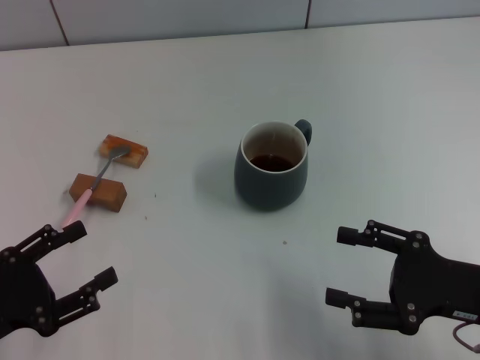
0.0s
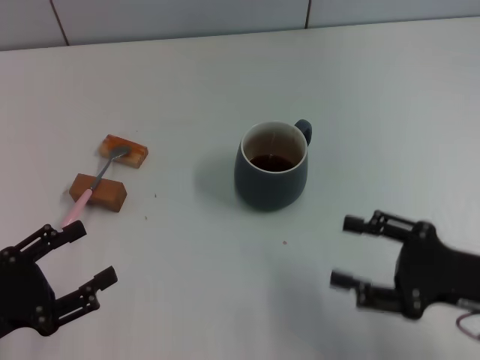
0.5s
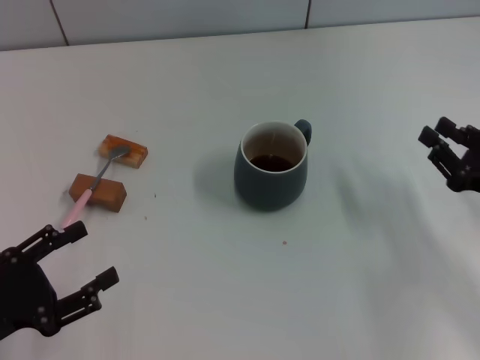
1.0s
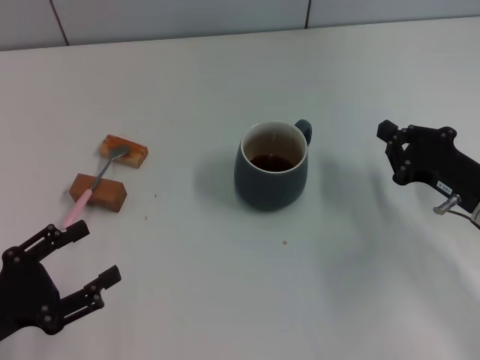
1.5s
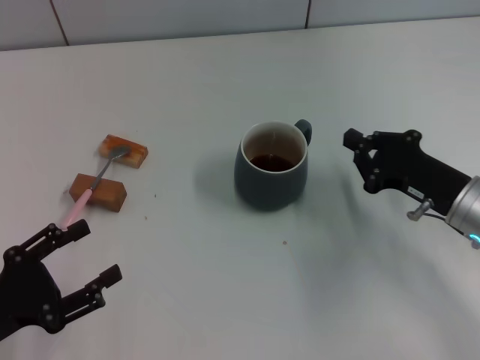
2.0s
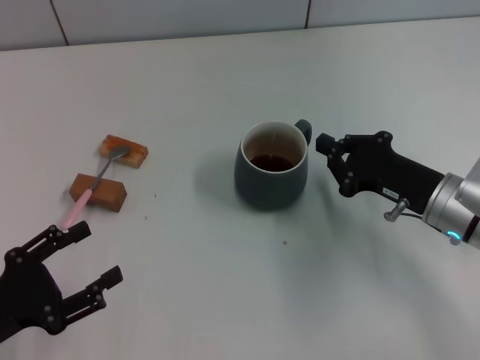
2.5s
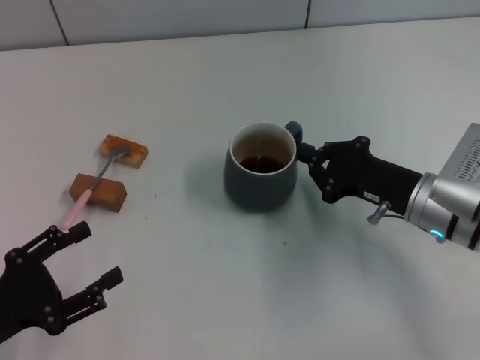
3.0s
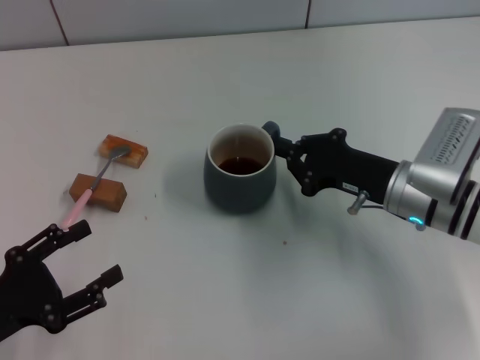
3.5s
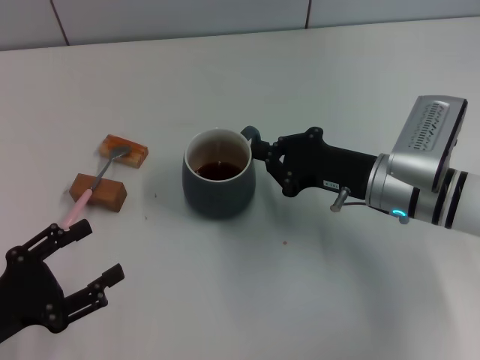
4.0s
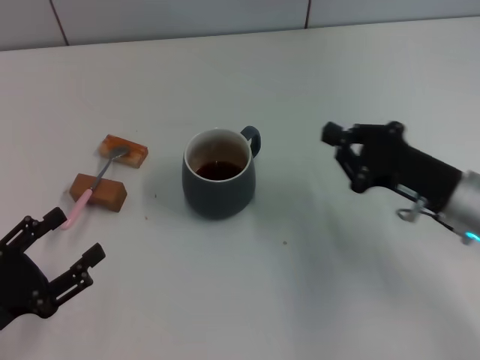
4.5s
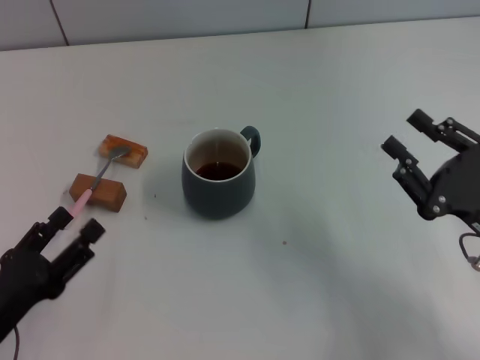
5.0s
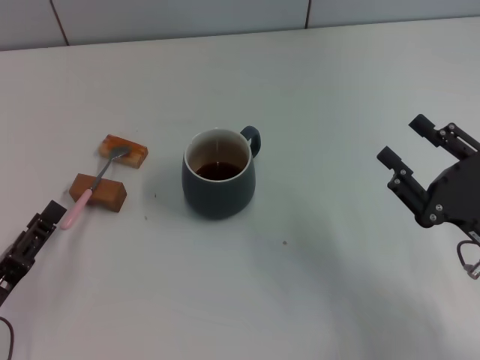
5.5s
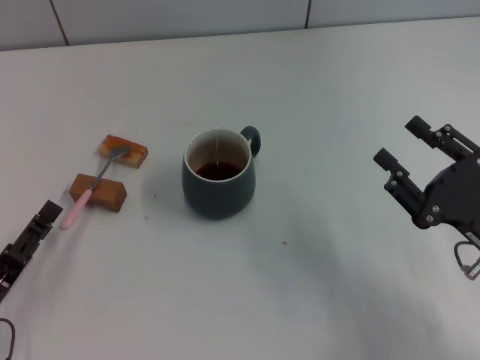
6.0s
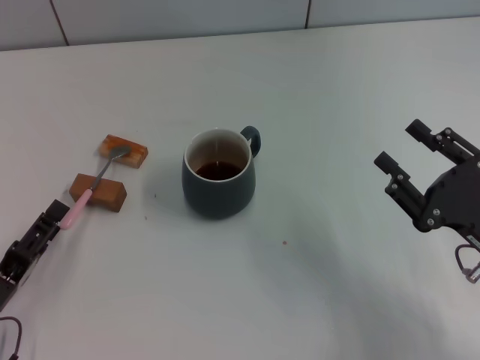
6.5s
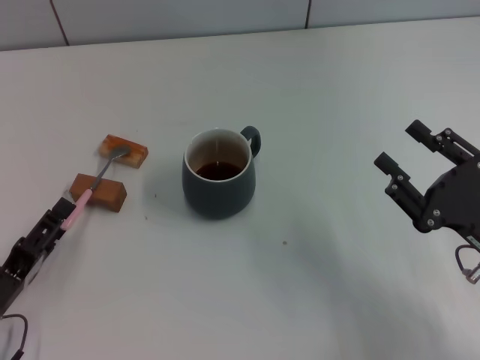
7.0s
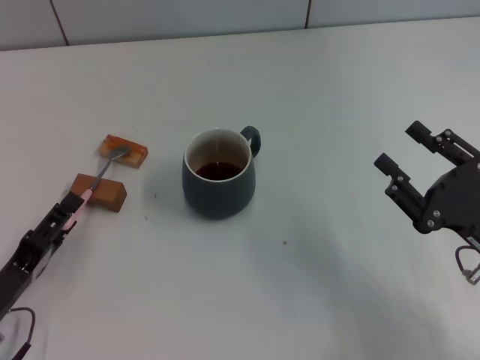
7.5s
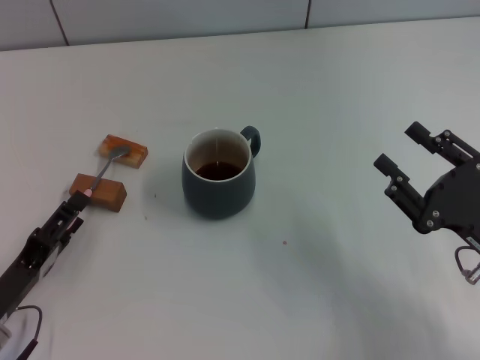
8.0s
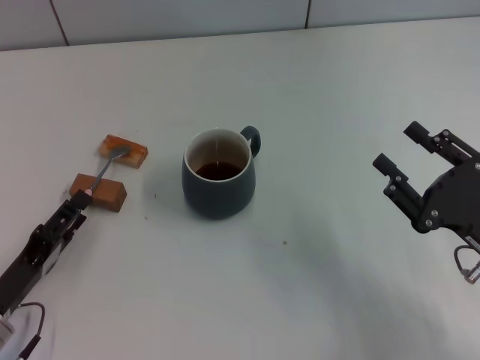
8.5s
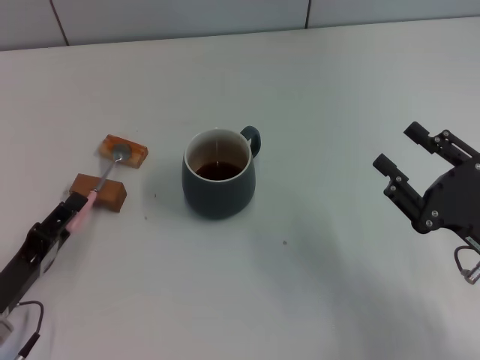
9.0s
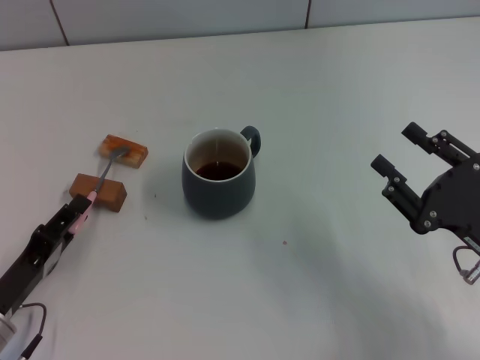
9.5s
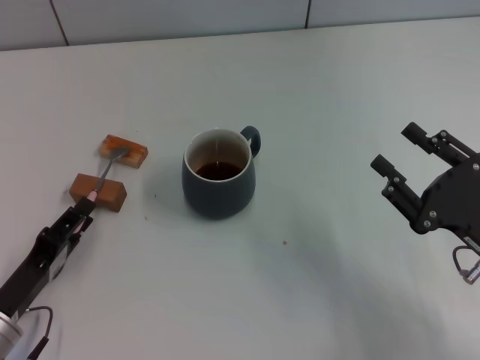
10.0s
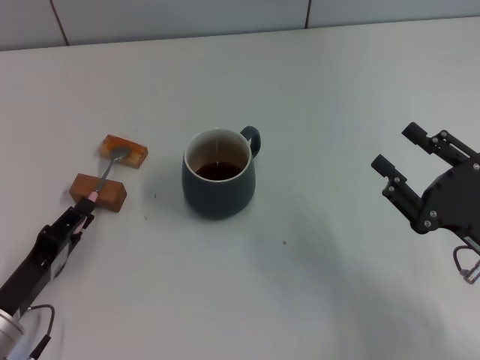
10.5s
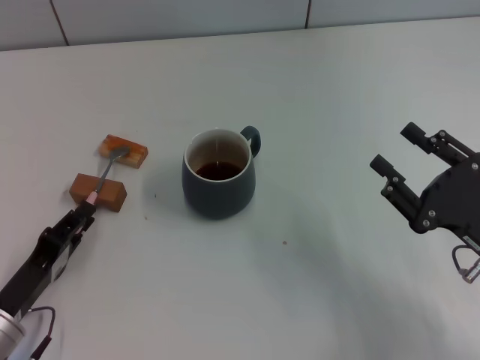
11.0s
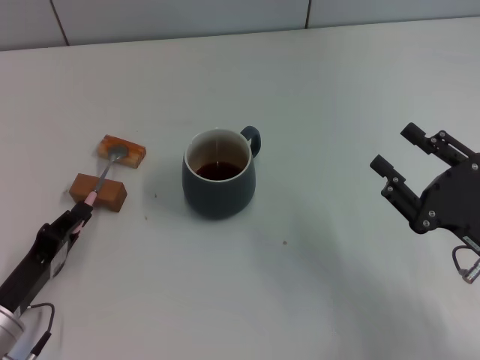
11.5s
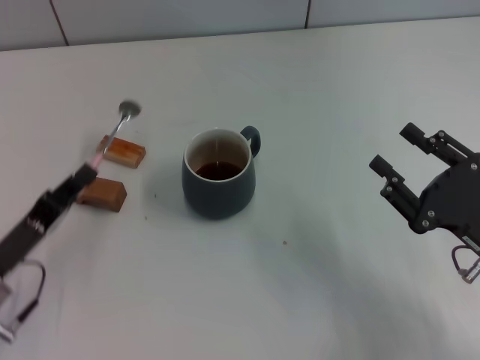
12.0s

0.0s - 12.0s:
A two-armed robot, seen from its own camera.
Task of the whole recording: Move the grey cup to the center, lift the pink spoon, stir it three times in the cup, and put the spoon into the cup.
Step, 0.0s - 4.0s: Move the cup with coffee to the center of view with the right gripper.
Step, 4.5s - 11.5s: Pick up the spoon with the left gripper.
0.0s - 2.0s: The right gripper shifts about 10 cm forward, and closes its fingers.
2.0s - 4.0s: The right gripper shifts roughly 10 cm to the left.
4.0s - 6.0s: The right gripper is displaced backward and to the right by about 15 cm, and opens its fingers.
6.0s - 8.0s: The grippers move only a little.
8.0s - 10.0s: The left gripper closes its fingers.
10.0s - 12.0s: The left gripper closes up.

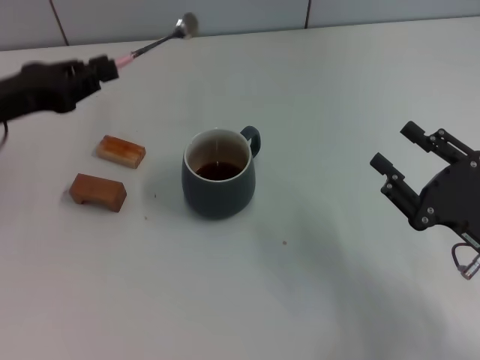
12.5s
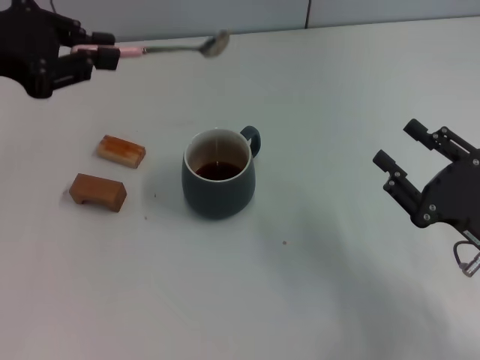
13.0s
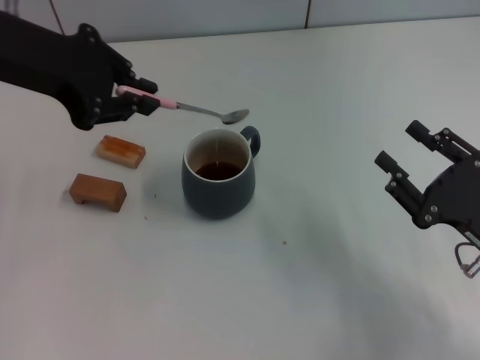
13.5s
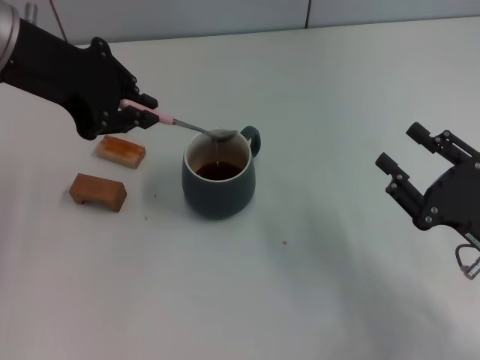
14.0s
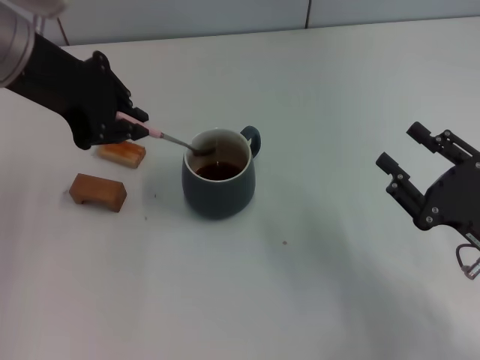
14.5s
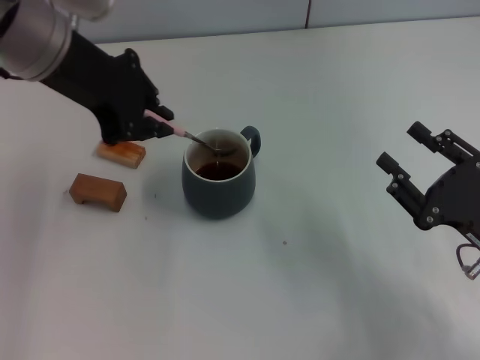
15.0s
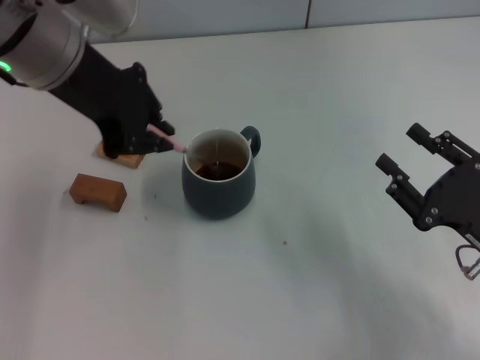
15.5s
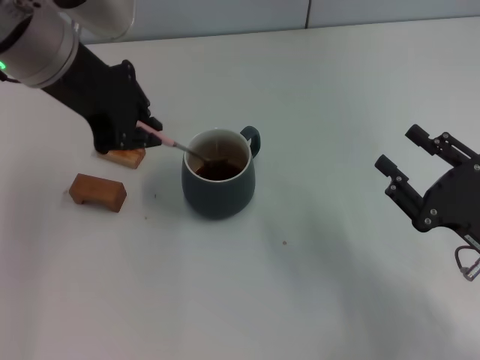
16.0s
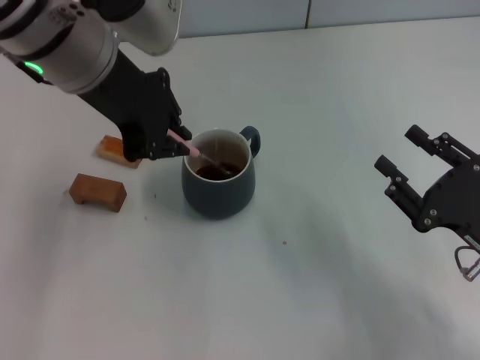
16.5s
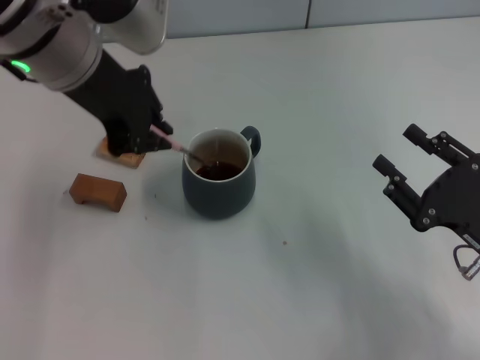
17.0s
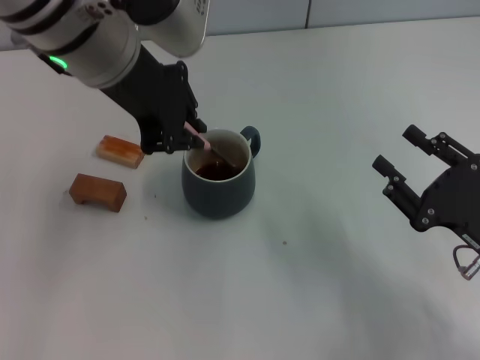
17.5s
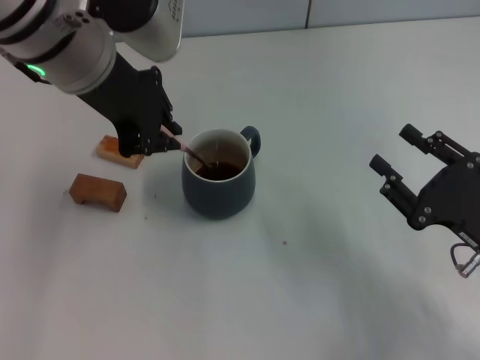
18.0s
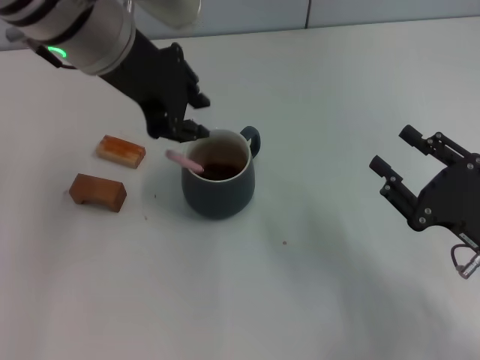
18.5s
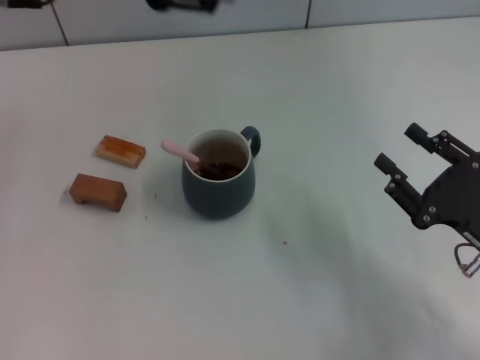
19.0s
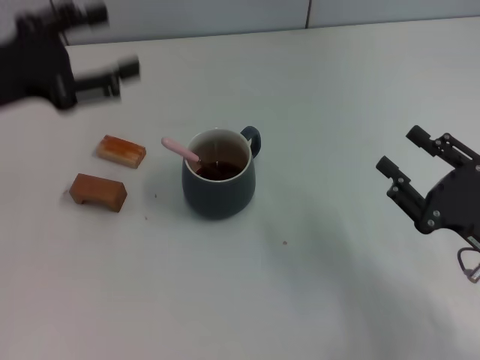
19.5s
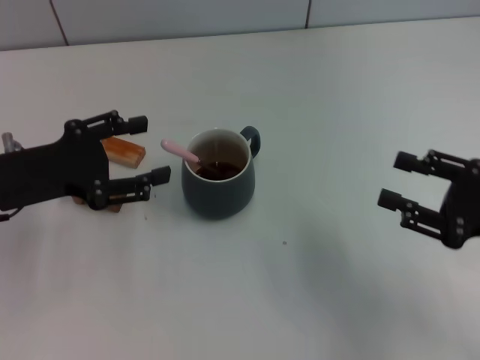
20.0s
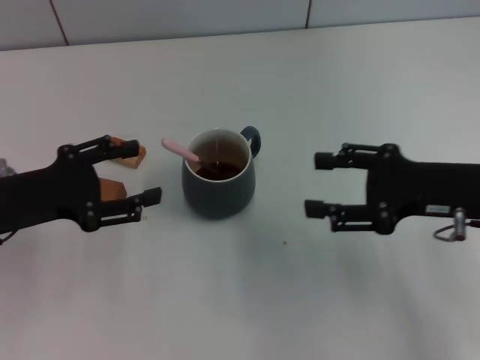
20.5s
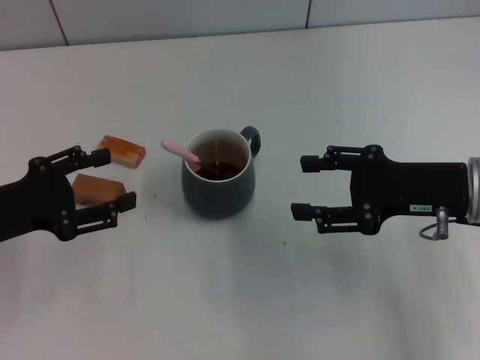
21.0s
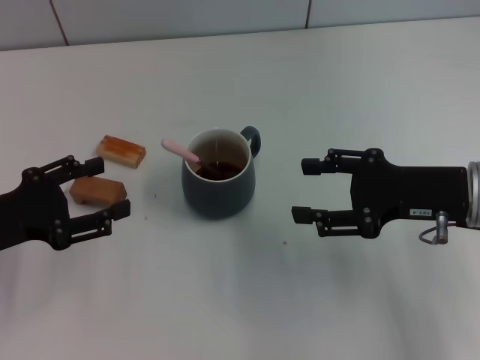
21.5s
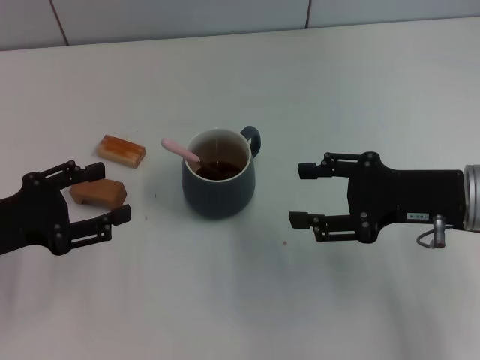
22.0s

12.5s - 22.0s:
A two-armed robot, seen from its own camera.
Task of the whole recording: Move the grey cup to the center, lift the pink spoon, stir it three times in the cup, and put the spoon into the cup.
Step, 12.5s - 18.0s: Stir the coffee in the cup with the left gripper.
12.5s - 14.5s: The left gripper travels upward and to the right by some 15 cm.
14.5s - 16.5s: The left gripper goes roughly 5 cm to the right.
16.5s - 18.0s: The grippers stay close to where they were, moving slightly.
18.0s - 20.0s: The right gripper shifts roughly 5 cm upward. Meanwhile the left gripper travels downward, to the left and backward by approximately 20 cm, and opens its fingers.
20.0s - 22.0s: The right gripper shifts some 5 cm to the left; the left gripper changes place by roughly 5 cm.

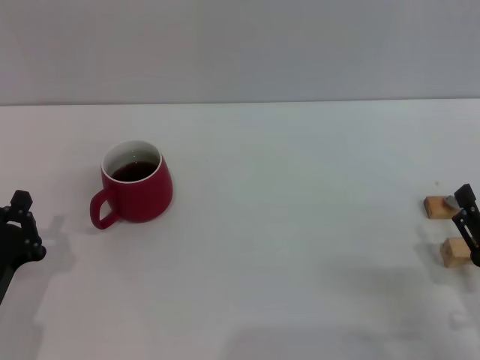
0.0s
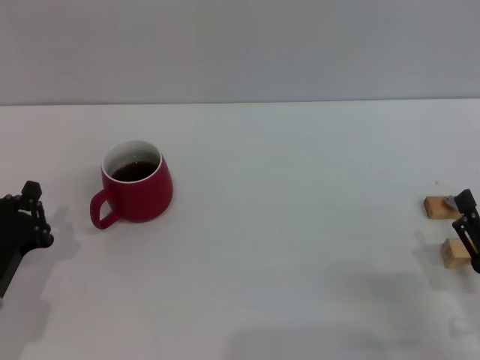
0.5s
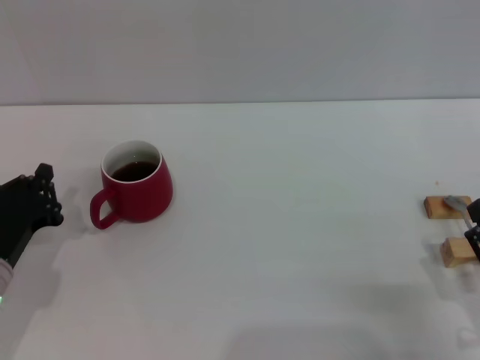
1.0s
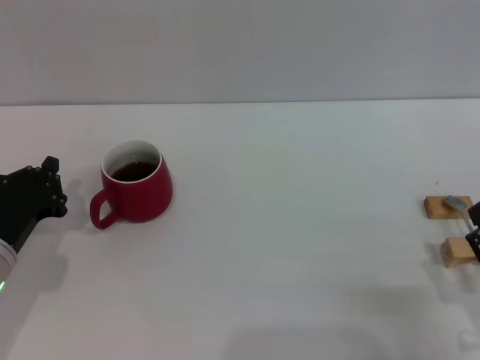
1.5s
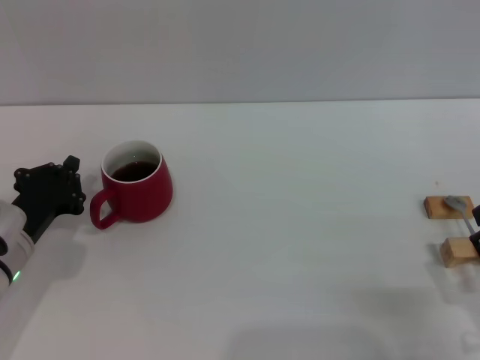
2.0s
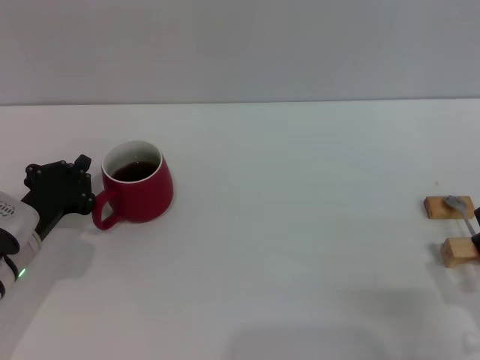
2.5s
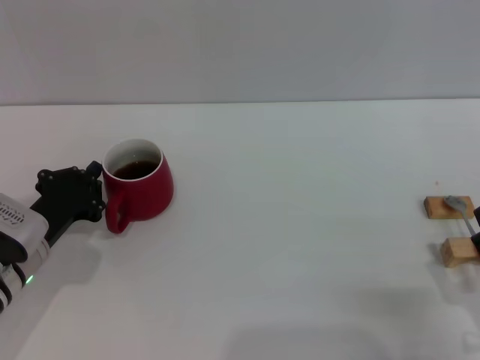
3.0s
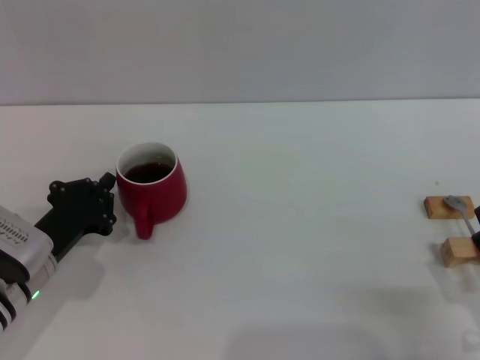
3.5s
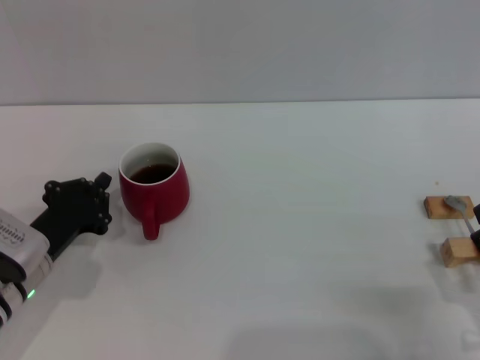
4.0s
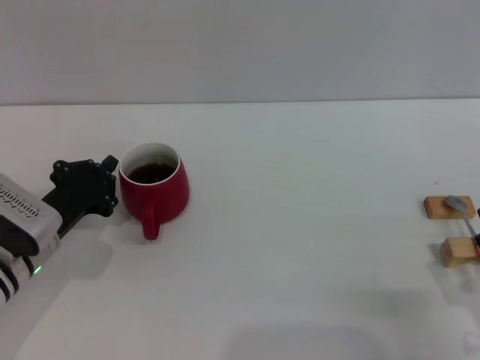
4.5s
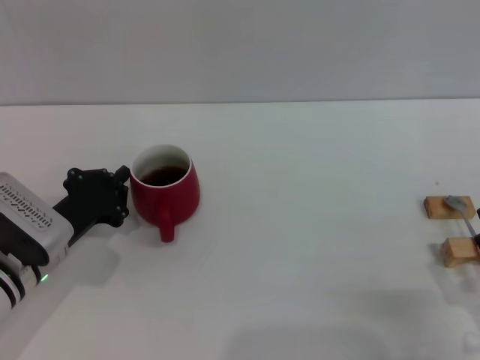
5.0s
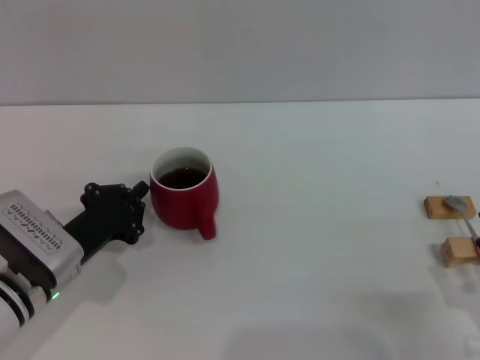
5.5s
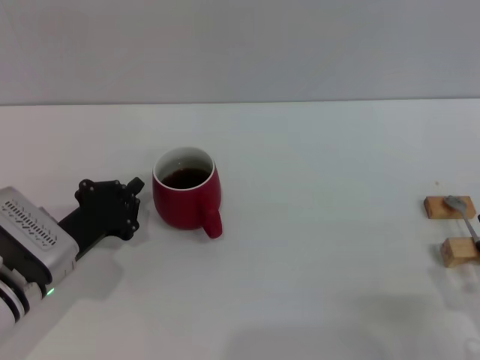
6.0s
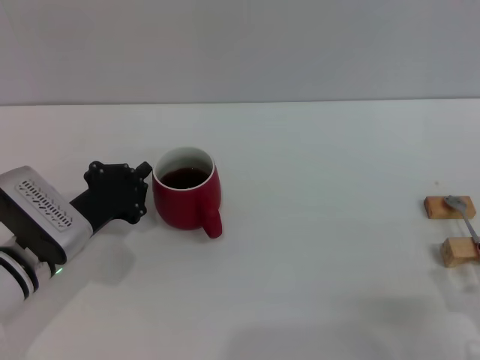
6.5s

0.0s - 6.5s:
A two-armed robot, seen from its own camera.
Task of the whole recording: Move the red cup to the center, lift the pink spoon, stir it three times in the cup, and put the spoon into the cup.
0.0s - 2.0s: The left gripper shifts roughly 10 cm forward.
2.0s - 4.5s: The grippers make only small movements.
4.5s - 6.5s: The grippers stay close to where they were, moving slightly.
